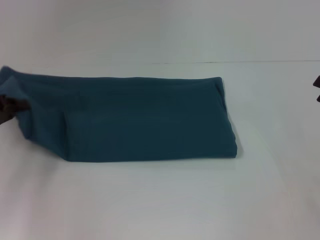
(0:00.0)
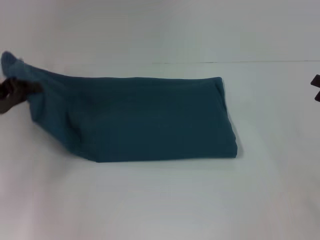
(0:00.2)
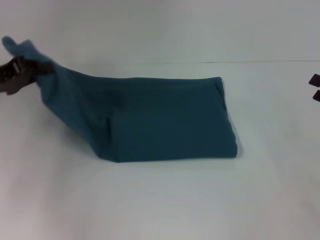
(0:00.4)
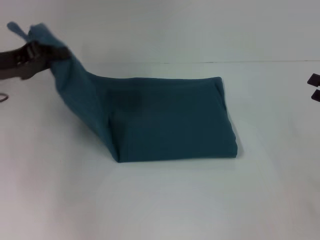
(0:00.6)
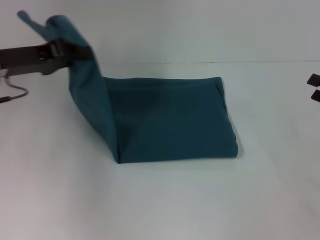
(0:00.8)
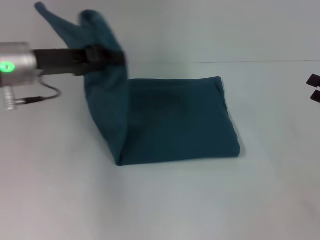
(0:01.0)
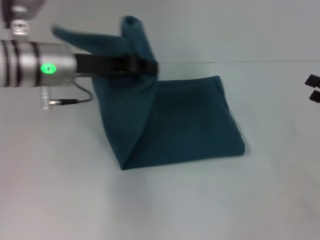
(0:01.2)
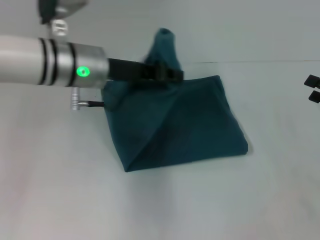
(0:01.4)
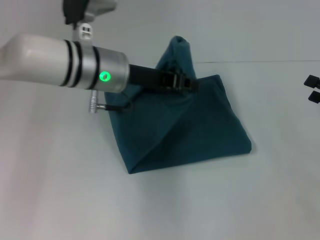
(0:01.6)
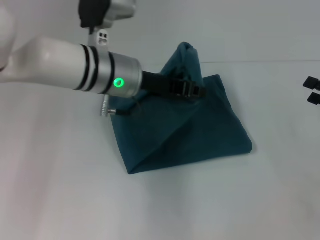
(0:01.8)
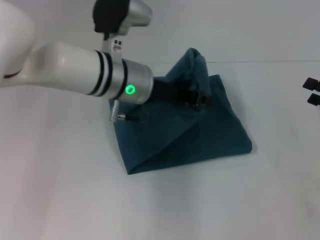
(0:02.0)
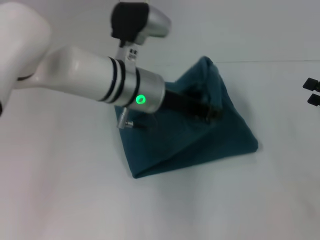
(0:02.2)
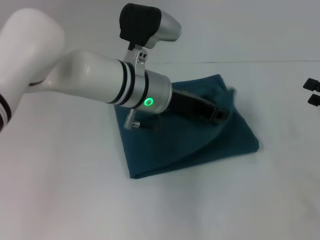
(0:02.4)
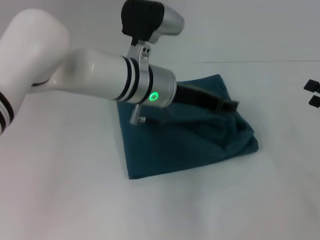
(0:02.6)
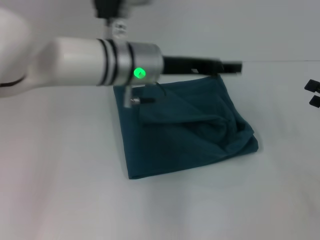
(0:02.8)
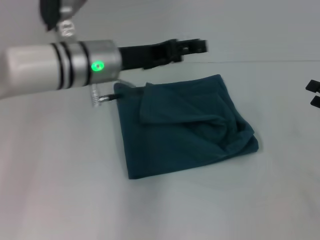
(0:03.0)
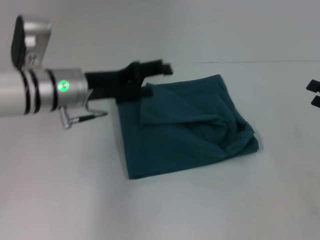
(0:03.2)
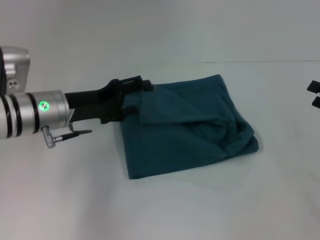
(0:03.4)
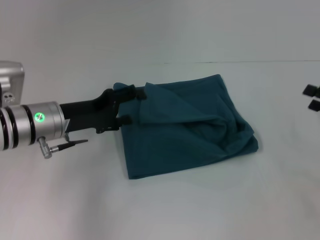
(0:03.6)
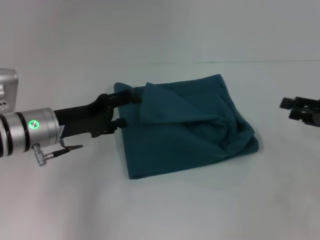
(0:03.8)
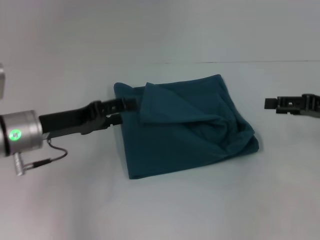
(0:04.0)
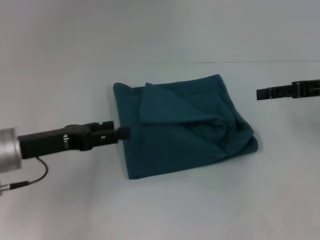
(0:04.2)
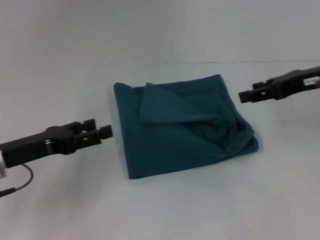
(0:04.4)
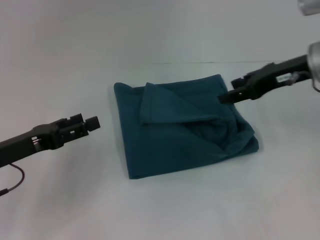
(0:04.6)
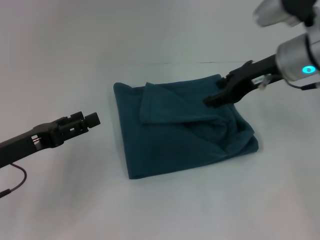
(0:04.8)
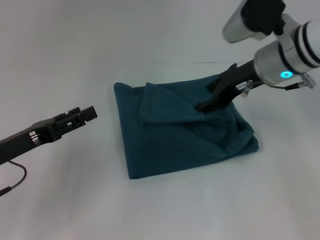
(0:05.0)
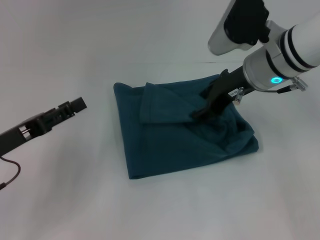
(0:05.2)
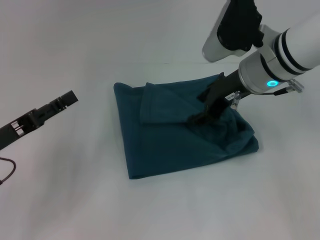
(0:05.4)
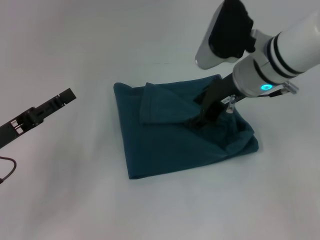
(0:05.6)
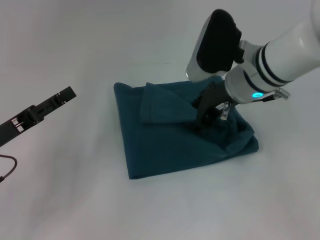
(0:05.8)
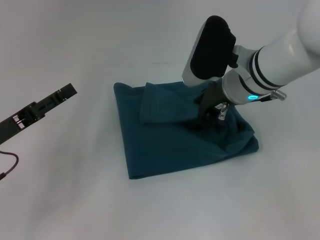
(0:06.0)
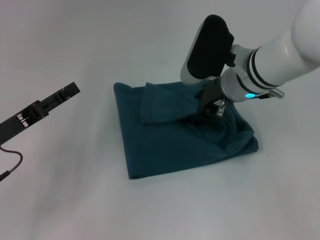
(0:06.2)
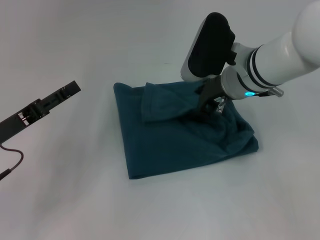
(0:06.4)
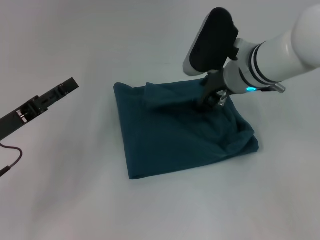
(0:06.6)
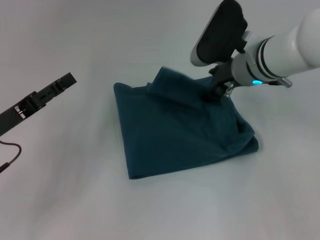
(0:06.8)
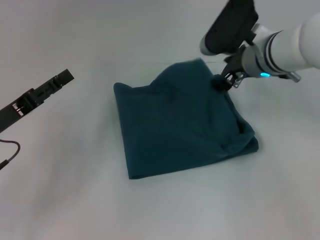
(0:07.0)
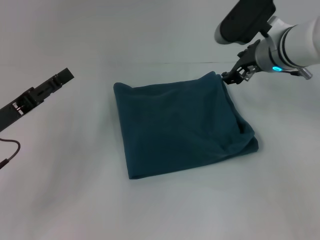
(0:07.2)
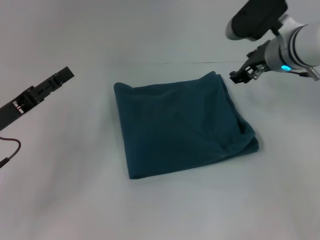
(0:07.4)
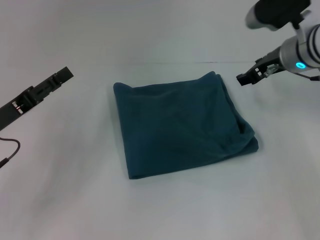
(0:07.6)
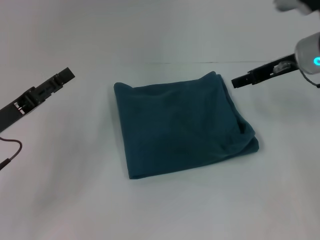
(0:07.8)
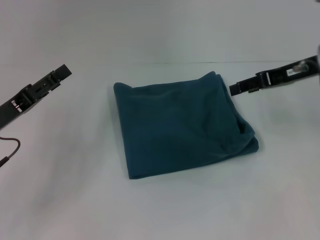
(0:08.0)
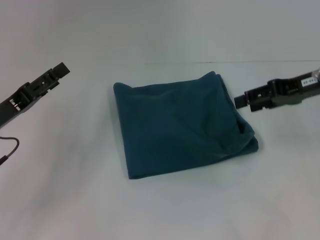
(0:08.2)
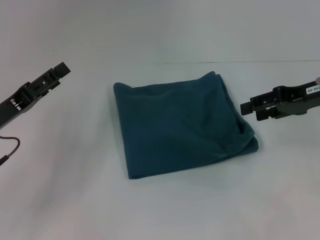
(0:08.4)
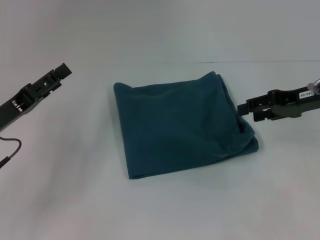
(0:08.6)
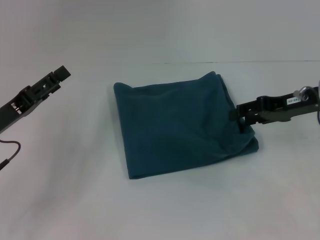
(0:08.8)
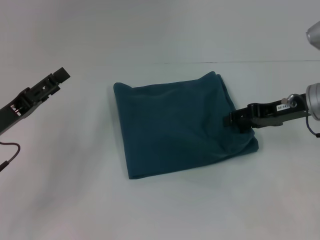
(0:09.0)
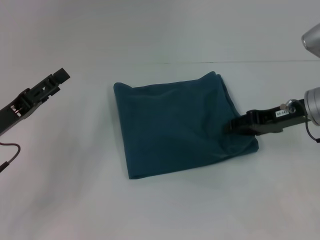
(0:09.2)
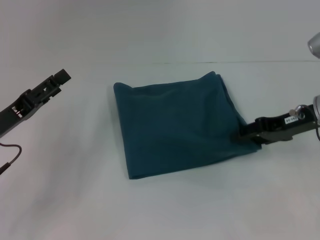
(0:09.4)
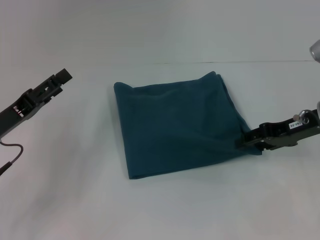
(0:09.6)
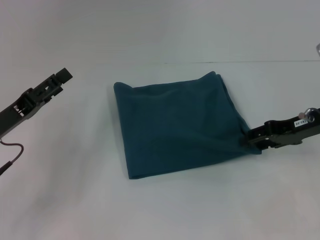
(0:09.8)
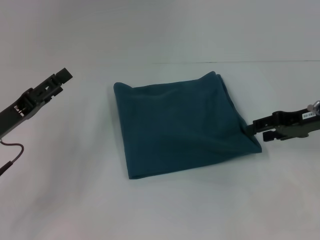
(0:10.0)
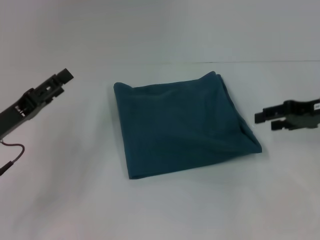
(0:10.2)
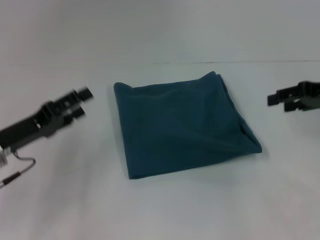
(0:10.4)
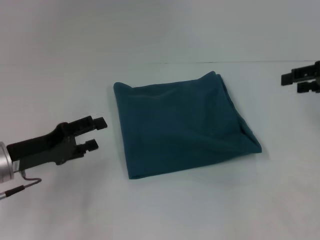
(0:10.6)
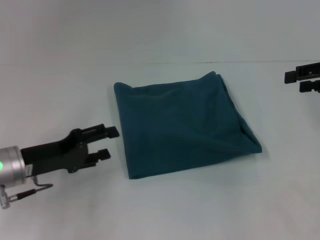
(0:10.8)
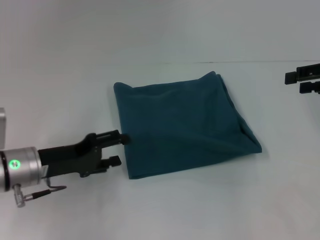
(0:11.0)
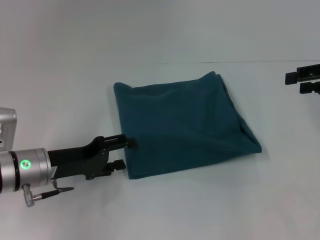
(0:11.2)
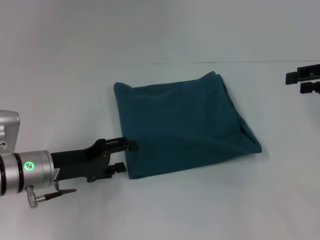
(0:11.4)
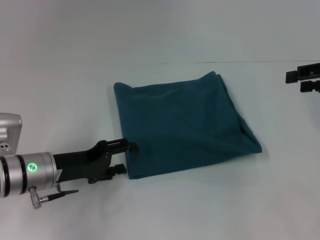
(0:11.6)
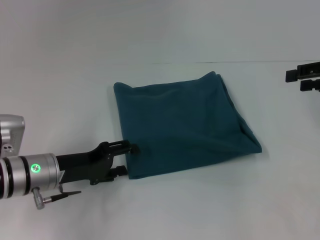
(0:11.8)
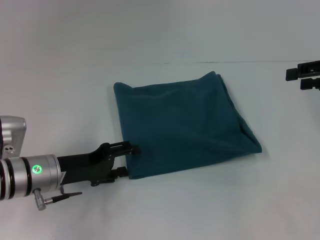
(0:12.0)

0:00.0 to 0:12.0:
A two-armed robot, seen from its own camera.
Step, 0:00.0 to 0:02.6: Fold the clothes to the left.
0:00.0 to 0:01.6: The left gripper travels to the right by approximately 25 cm.
0:01.6 to 0:03.0: The left gripper goes to the right and returns, about 5 cm each way, and opens up.
0:03.0 to 0:04.4: The right gripper shifts about 15 cm to the left, upward and forward. The left gripper shifts roughly 20 cm to the left, backward and downward.
0:04.4 to 0:06.0: The right gripper moves to the left, about 15 cm.
0:06.0 to 0:07.6: The right gripper heads to the right, covering approximately 10 cm.
0:07.6 to 0:09.0: The right gripper is displaced to the right and backward by roughly 5 cm.
0:09.0 to 0:10.4: The right gripper shifts about 5 cm to the right.
0:10.4 to 0:12.0: The left gripper is displaced to the right by roughly 5 cm.

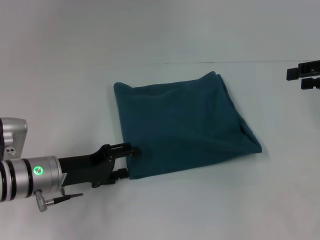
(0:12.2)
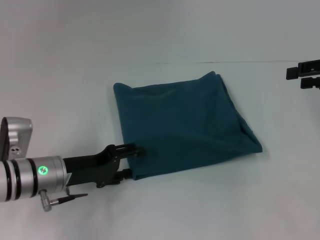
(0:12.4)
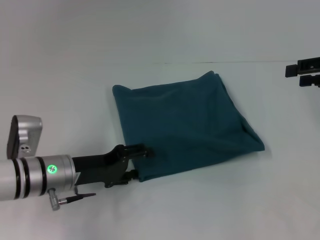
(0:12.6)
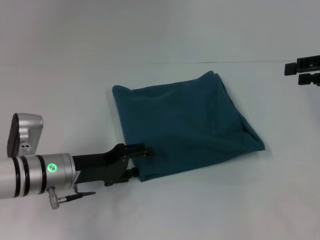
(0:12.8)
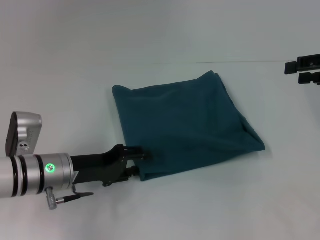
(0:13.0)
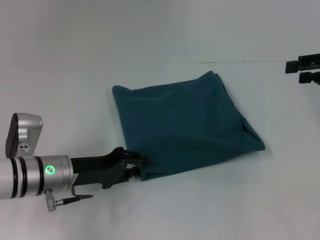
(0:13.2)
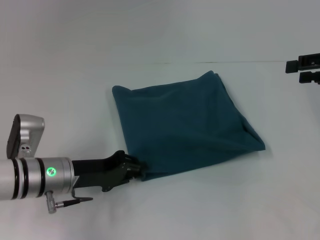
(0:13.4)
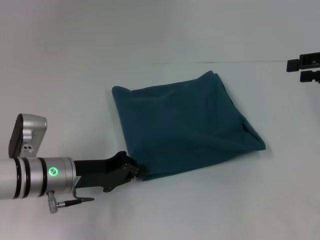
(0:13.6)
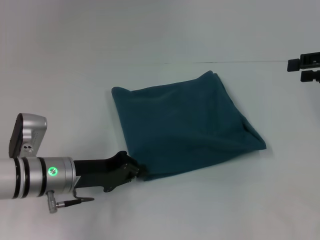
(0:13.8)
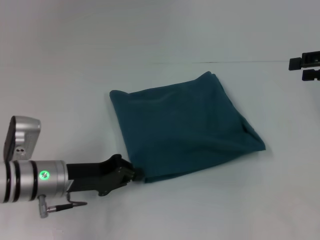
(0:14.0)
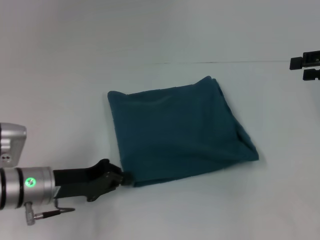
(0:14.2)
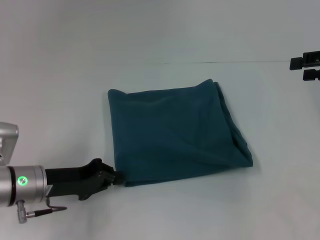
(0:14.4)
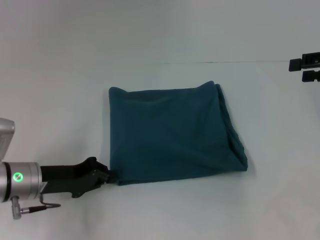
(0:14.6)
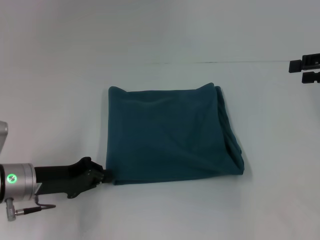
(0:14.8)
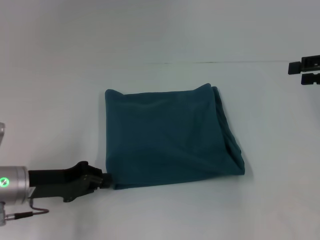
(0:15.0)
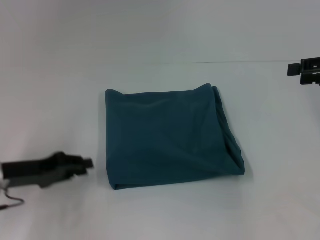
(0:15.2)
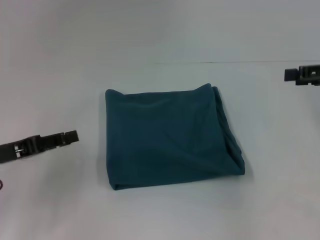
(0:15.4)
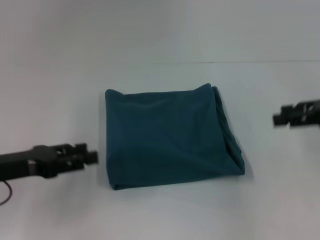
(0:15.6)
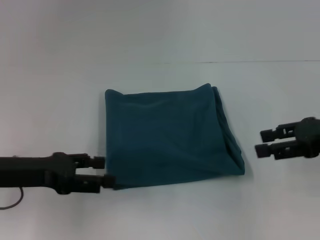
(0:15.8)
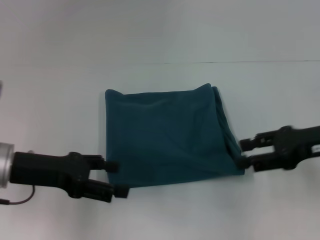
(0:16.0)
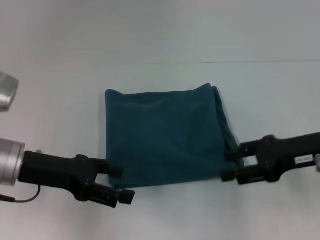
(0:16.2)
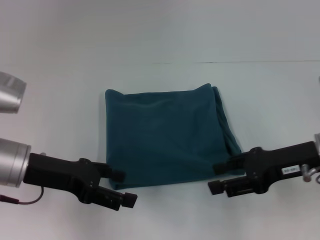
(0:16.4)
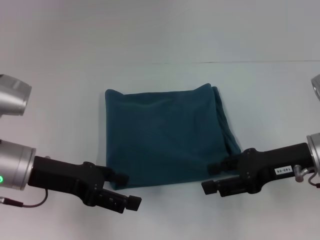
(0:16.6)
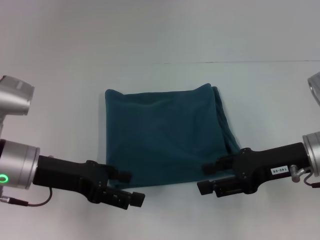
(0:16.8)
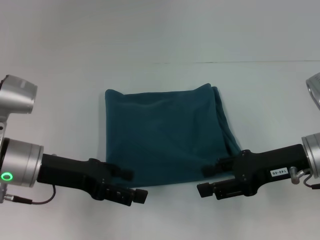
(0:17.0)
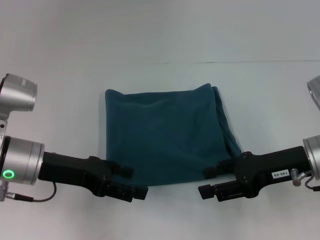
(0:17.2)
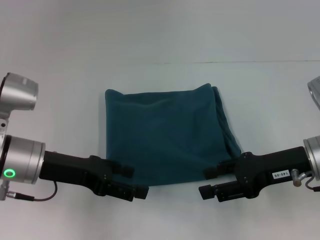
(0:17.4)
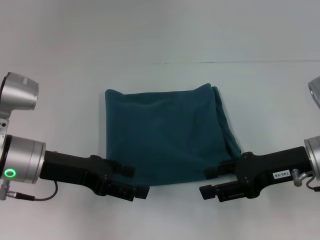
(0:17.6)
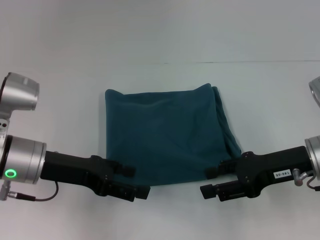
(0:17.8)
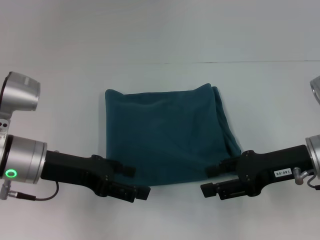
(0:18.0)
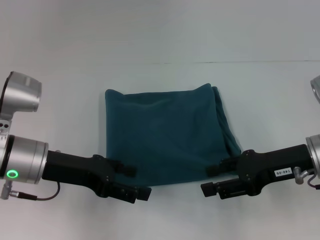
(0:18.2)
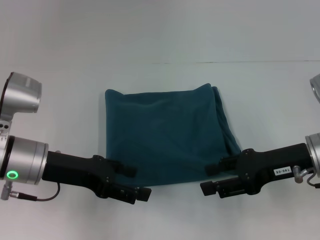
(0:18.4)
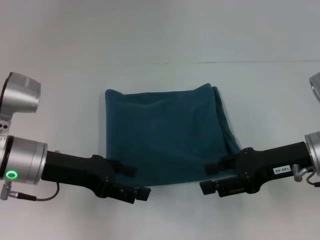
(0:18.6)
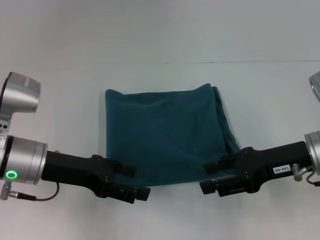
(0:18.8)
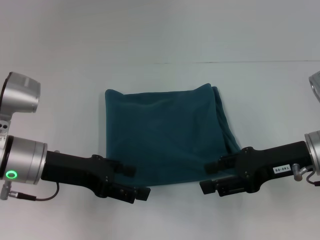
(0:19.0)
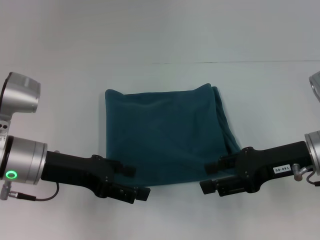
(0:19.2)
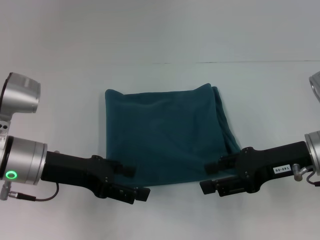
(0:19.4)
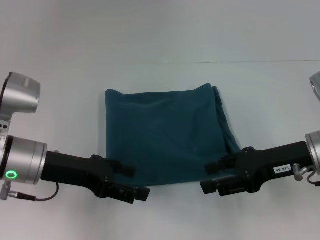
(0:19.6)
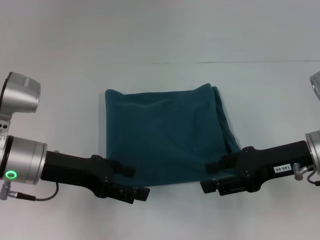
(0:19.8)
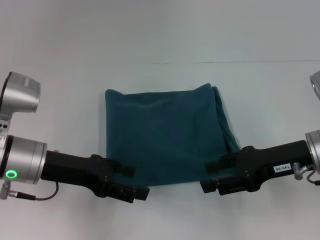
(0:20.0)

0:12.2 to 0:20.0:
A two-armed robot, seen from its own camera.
0:12.2 to 0:13.8: The left gripper closes its fingers.
0:13.8 to 0:15.4: The left gripper heads to the left and upward, covering roughly 15 cm.
0:15.4 to 0:16.8: The right gripper travels to the left, downward and backward by approximately 15 cm, while the left gripper shifts about 10 cm to the right, and opens.
0:16.8 to 0:20.0: The two grippers keep their place.

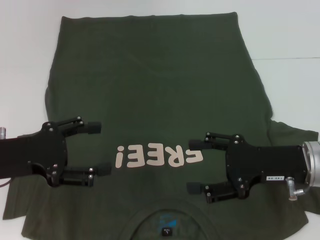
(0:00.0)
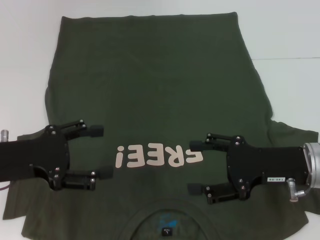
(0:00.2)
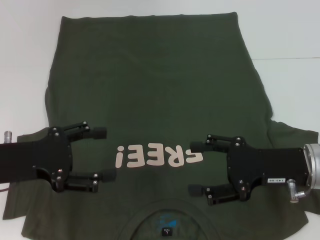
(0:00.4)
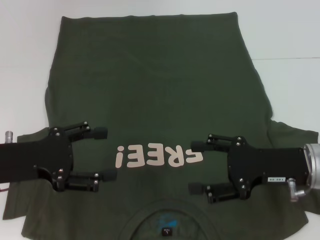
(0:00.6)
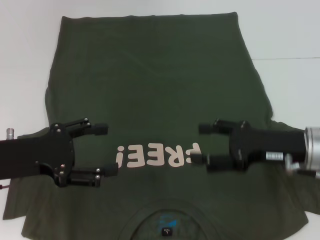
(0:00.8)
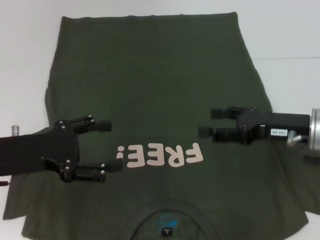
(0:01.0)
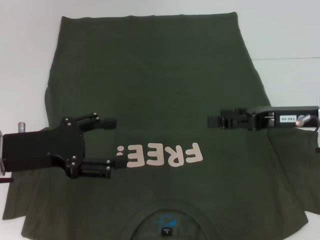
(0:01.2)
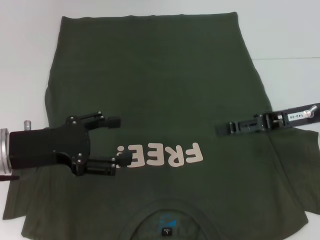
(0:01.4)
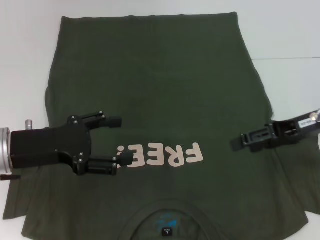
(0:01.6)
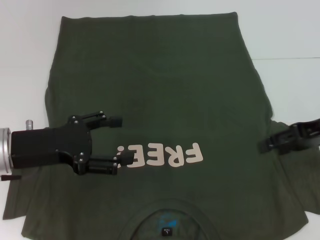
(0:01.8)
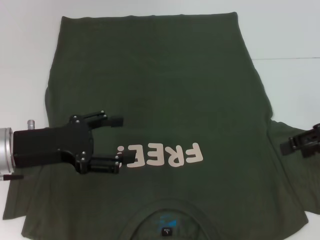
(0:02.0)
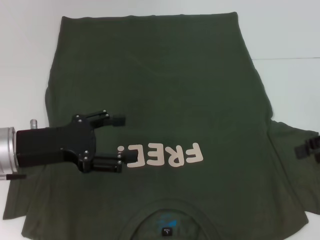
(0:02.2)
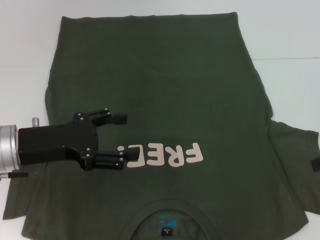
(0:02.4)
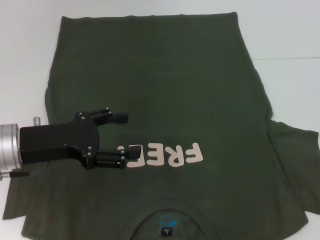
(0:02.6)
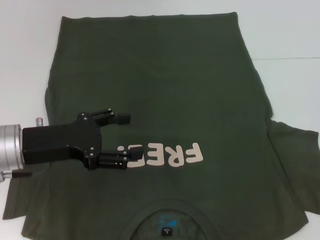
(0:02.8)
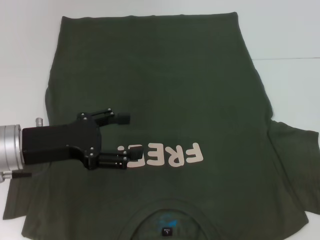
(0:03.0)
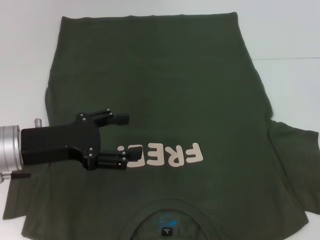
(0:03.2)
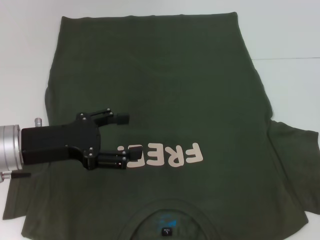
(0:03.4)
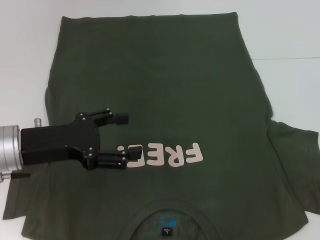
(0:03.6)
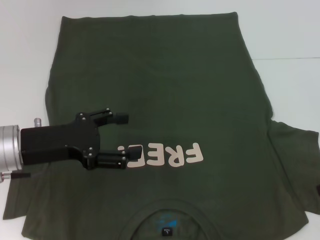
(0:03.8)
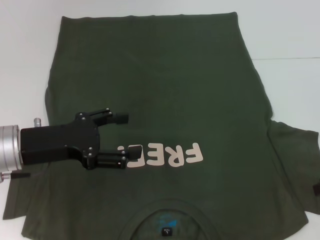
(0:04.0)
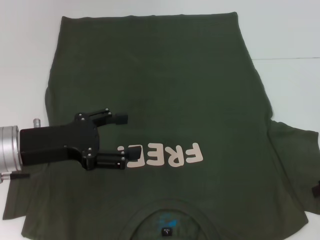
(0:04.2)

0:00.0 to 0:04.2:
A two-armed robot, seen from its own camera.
0:00.0 to 0:01.4: The right gripper travels forward by about 5 cm.
0:01.4 to 0:02.8: The right gripper is displaced to the right and backward by some 10 cm.
0:02.8 to 0:04.2: The grippers stay close to where they were, moving slightly.
